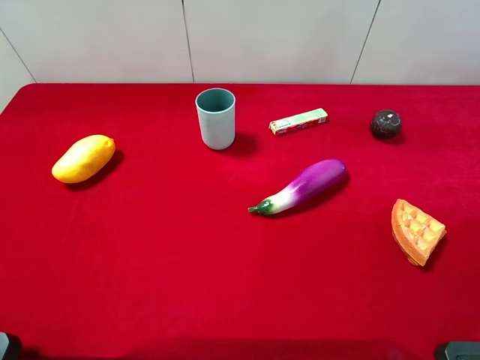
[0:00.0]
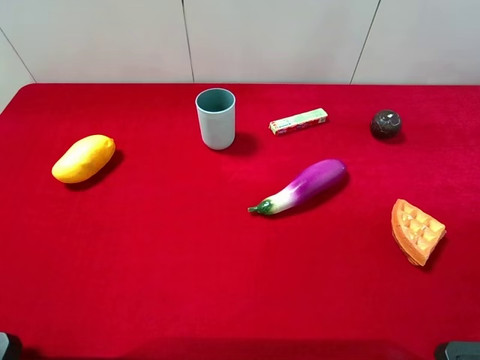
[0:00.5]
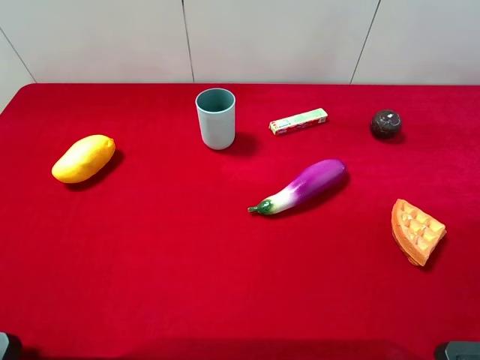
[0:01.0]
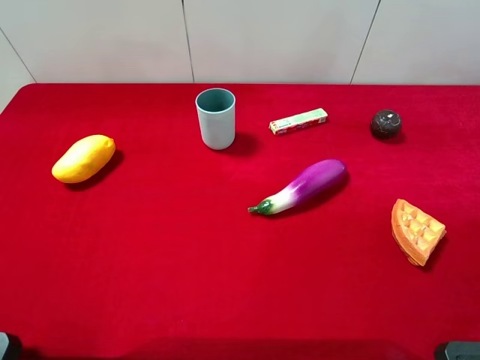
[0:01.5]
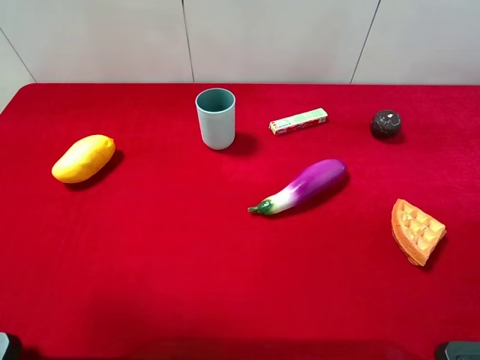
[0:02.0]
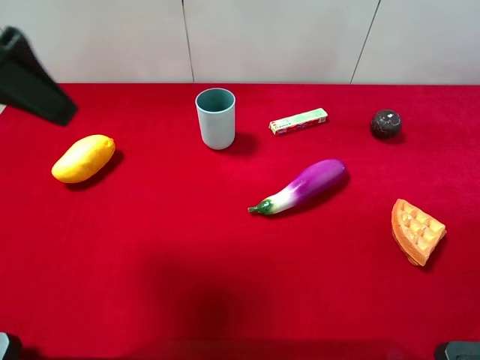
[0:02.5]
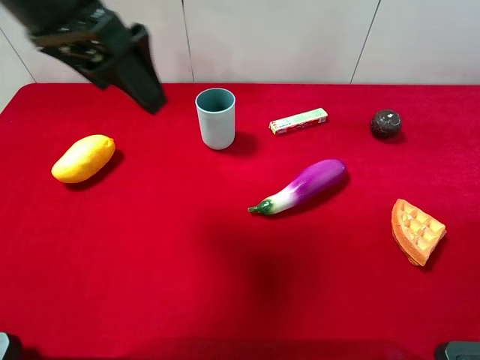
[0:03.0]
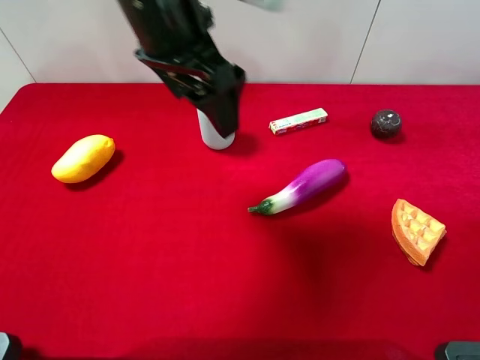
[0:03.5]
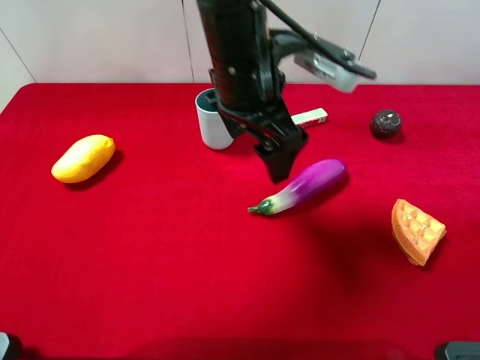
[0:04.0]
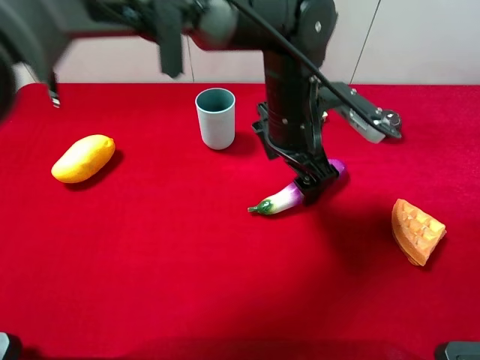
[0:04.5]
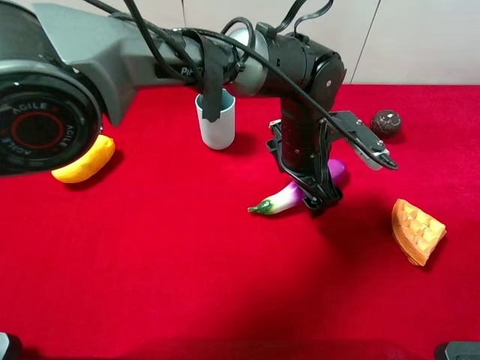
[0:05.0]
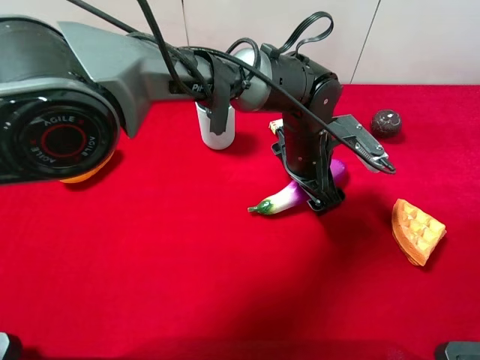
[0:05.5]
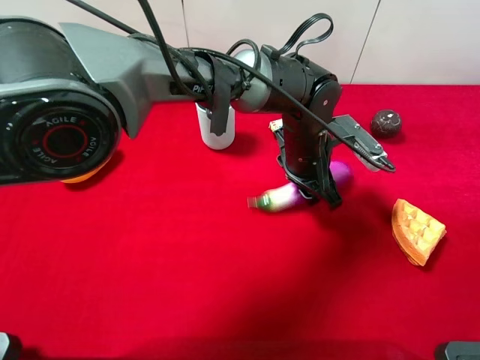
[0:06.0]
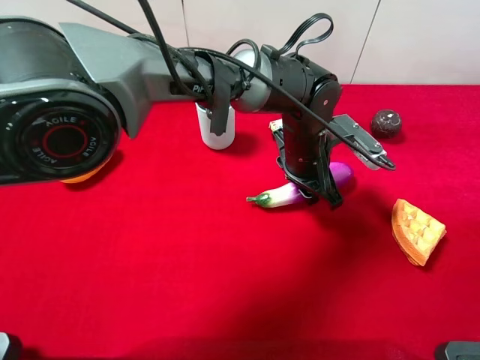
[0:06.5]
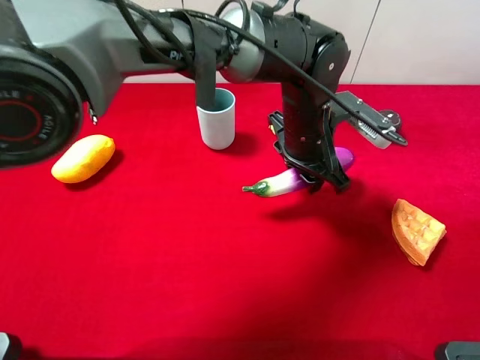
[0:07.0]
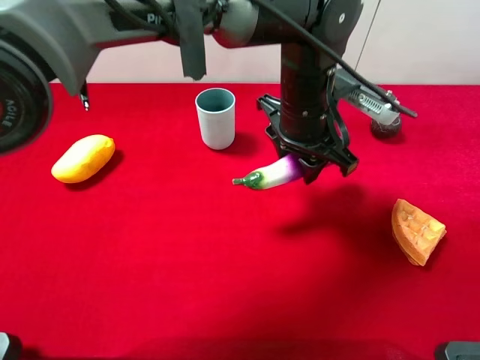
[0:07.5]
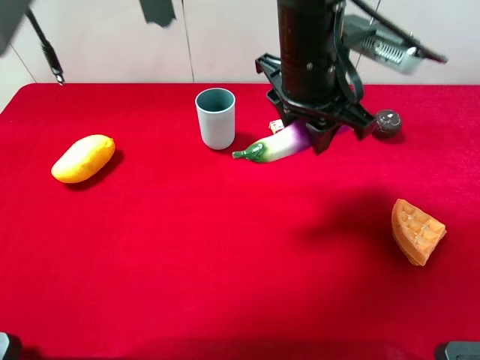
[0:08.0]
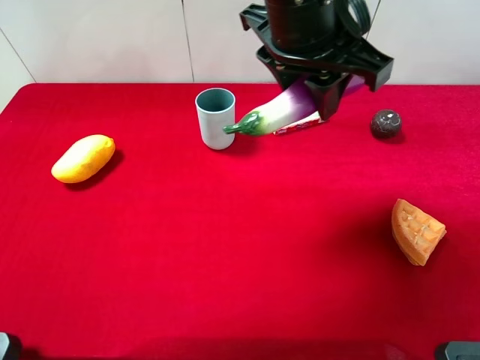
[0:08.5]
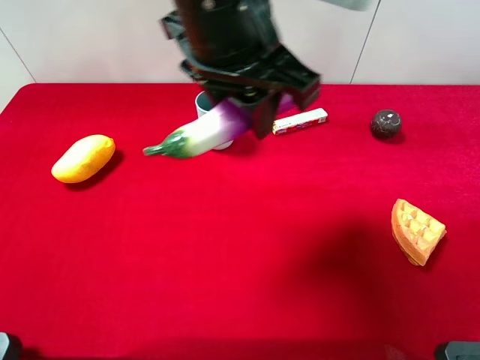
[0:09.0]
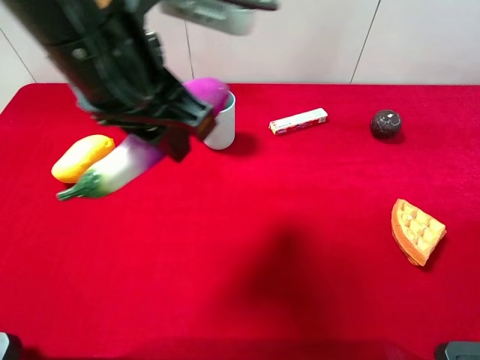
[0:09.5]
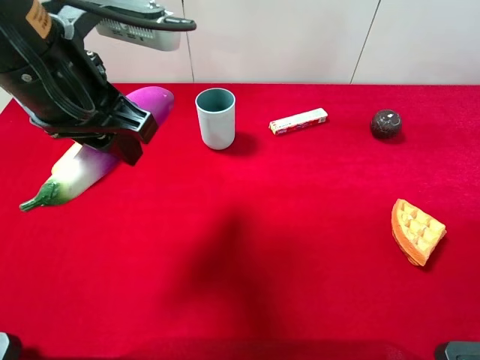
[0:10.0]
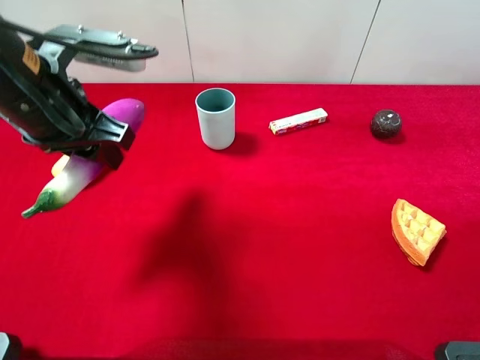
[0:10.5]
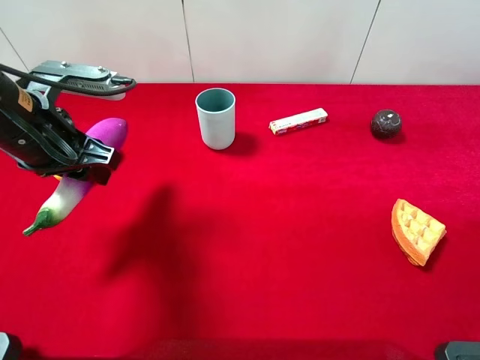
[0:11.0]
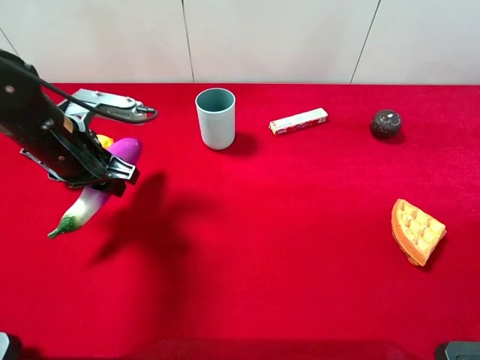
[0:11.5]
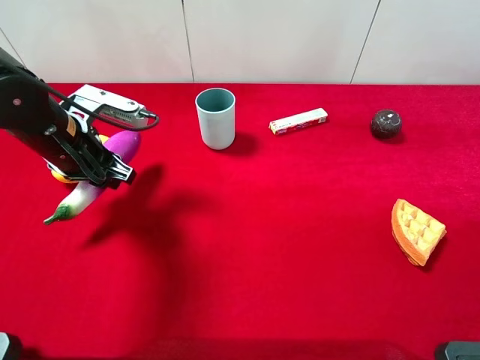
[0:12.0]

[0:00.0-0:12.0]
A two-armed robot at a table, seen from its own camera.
Task of the whole recording: the gripper move the object.
Step, 0:00.0 to 0:06.0: Grasp the eggplant with the left gripper.
0:02.0 to 0:04.0: The left gripper shifts roughly 35 cm to the right and forward.
0:04.0 to 0:06.0: The left gripper moves downward and to the right, about 15 cm, and closes up.
0:06.0 to 0:08.0: The left gripper moves upward, approximately 15 cm.
0:08.0 to 0:10.0: The left gripper shifts approximately 20 cm to the left.
0:10.0 to 0:12.0: The left gripper goes about 15 cm downward and to the left.

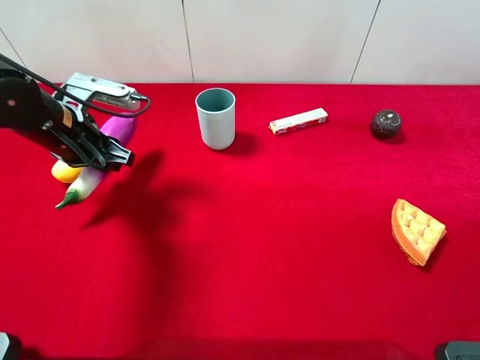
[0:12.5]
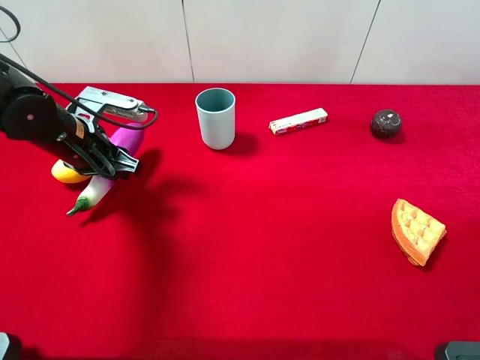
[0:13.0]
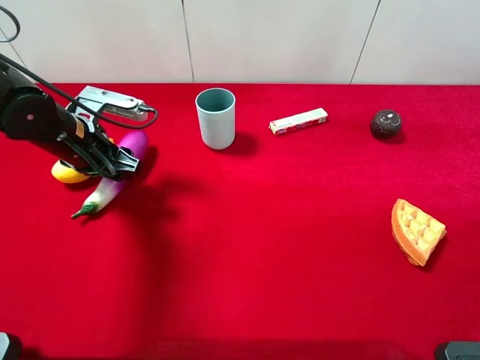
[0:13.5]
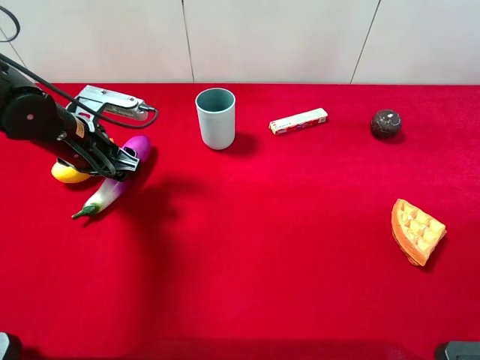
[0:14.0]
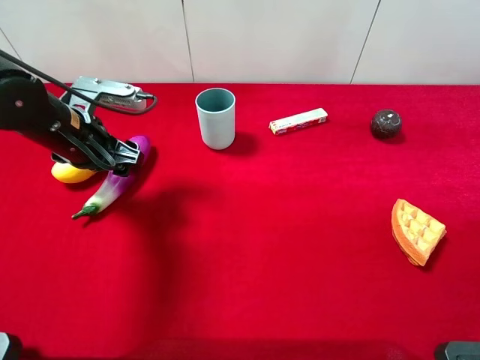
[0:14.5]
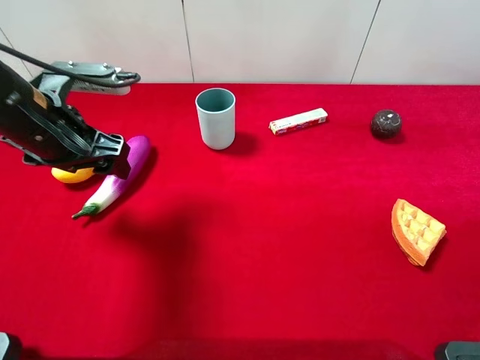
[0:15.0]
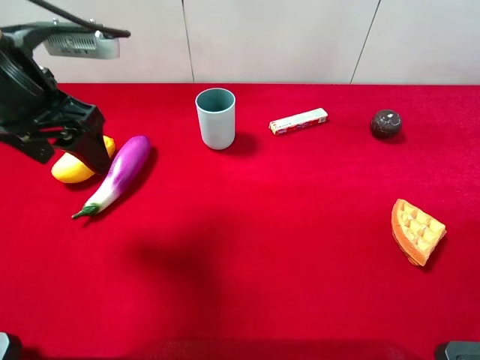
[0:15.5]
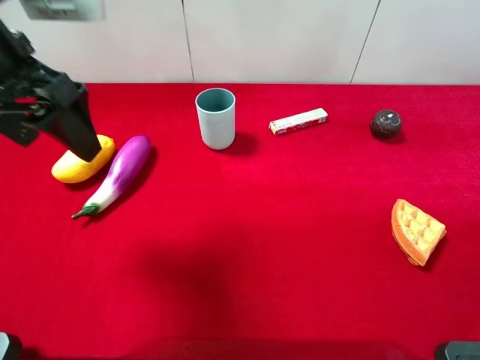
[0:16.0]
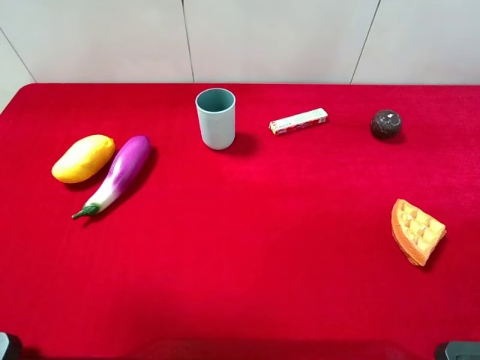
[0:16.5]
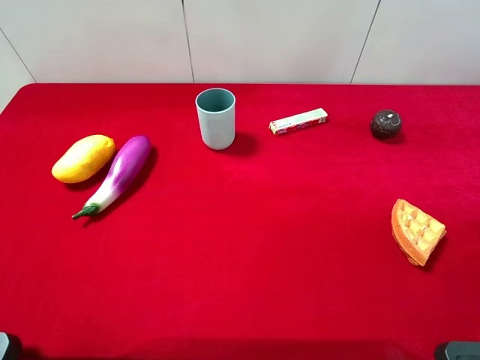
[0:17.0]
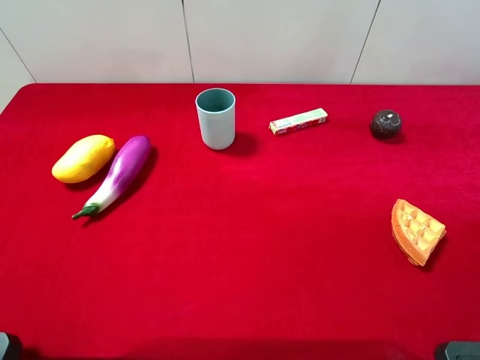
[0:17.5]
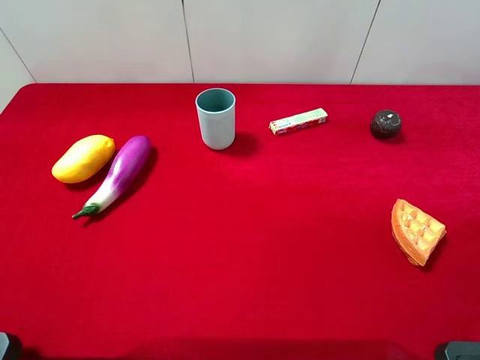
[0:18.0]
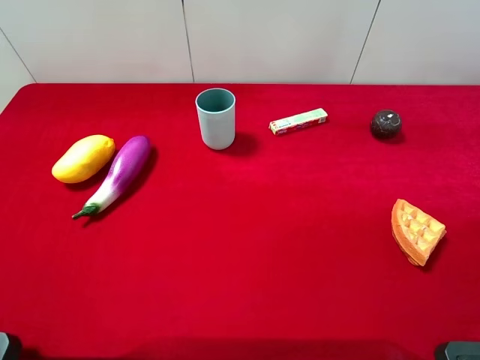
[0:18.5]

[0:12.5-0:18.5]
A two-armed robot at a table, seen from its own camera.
Task of the whole recording: the gripper move the object.
Step, 0:12.5 to 0:14.5: Place the eggplant on the table with the left gripper.
0:12.5 to 0:14.5: The left gripper opens up.
0:14.5 to 0:16.5: The left gripper moves upward and backward, roughly 30 cm.
0:16.5 to 0:18.5: The left gripper moves downward and backward, roughly 15 cm.
